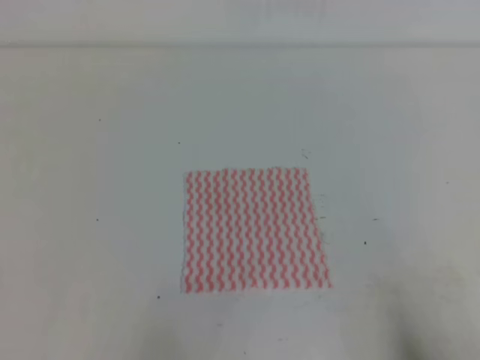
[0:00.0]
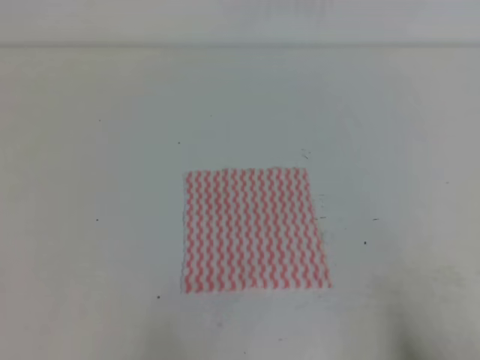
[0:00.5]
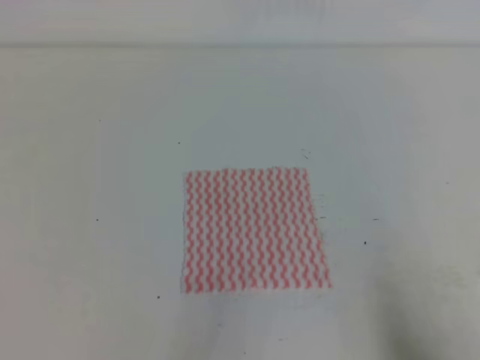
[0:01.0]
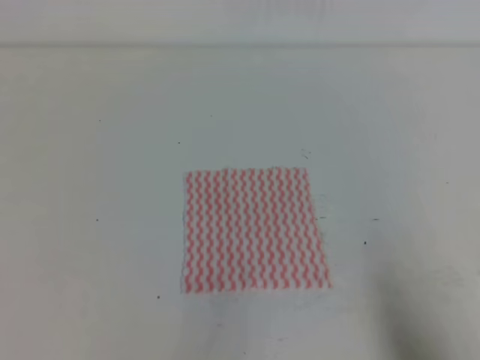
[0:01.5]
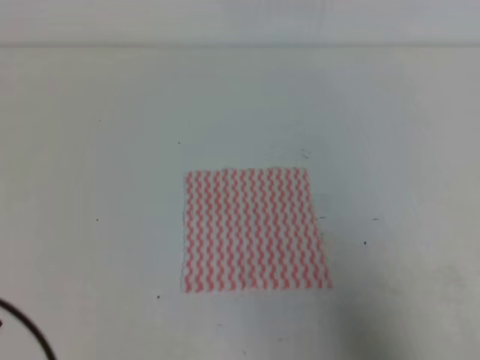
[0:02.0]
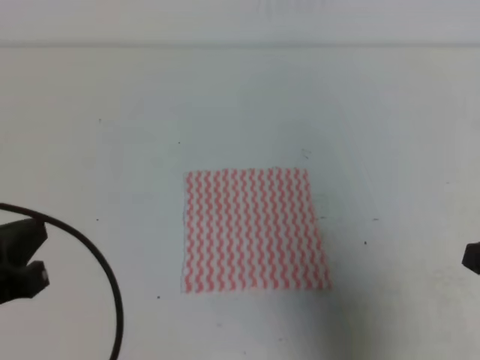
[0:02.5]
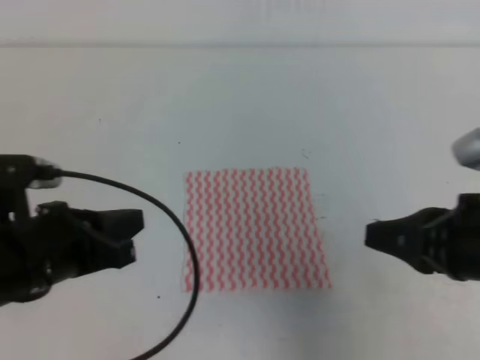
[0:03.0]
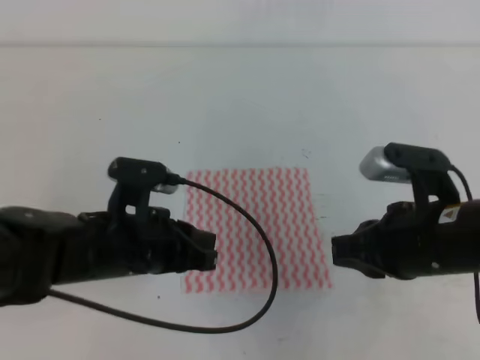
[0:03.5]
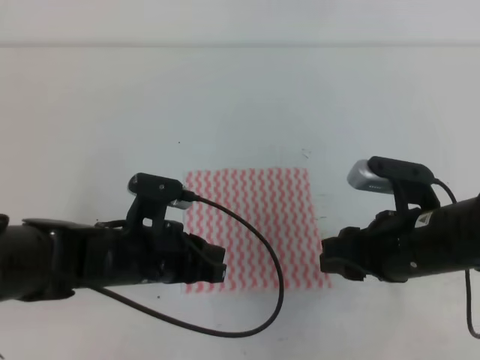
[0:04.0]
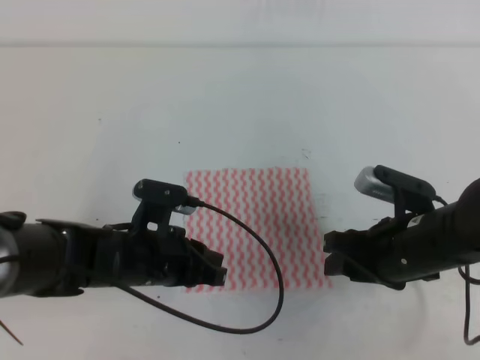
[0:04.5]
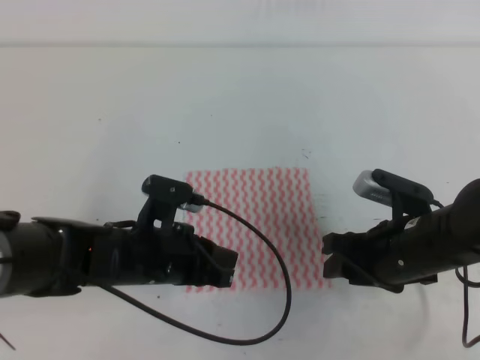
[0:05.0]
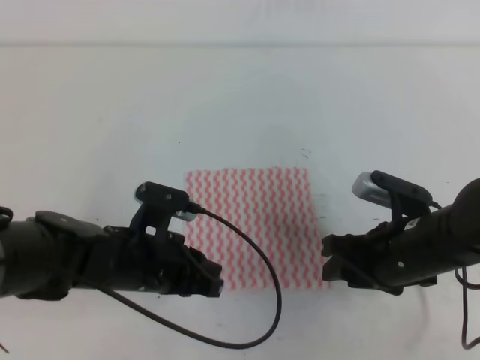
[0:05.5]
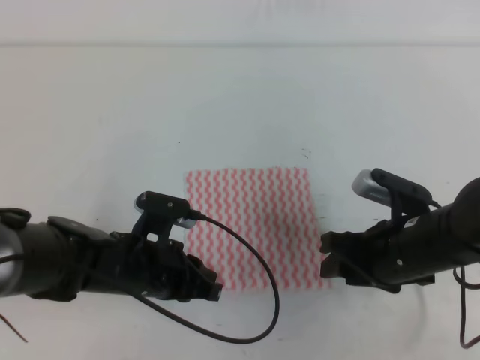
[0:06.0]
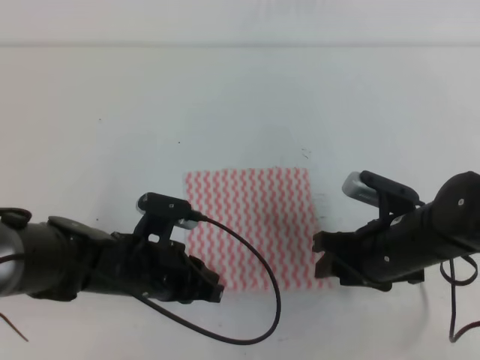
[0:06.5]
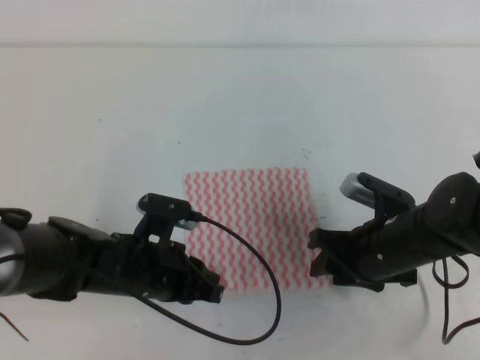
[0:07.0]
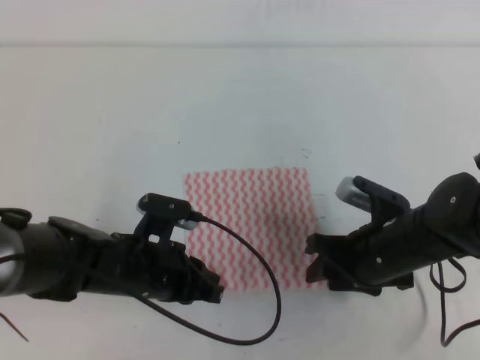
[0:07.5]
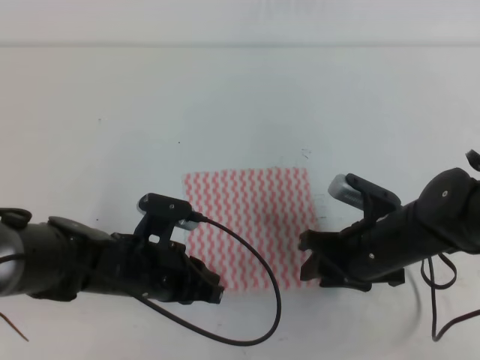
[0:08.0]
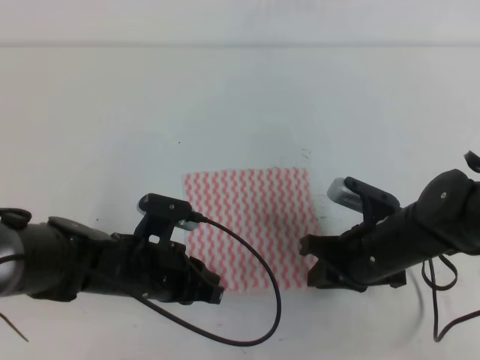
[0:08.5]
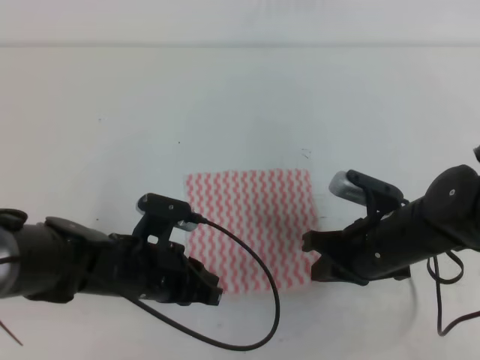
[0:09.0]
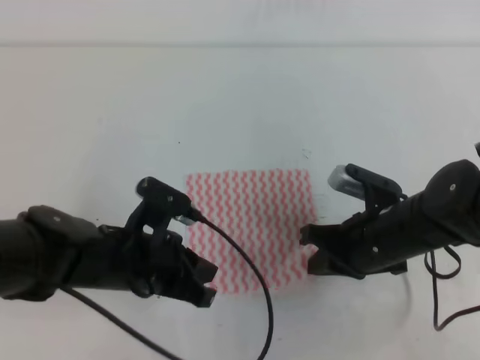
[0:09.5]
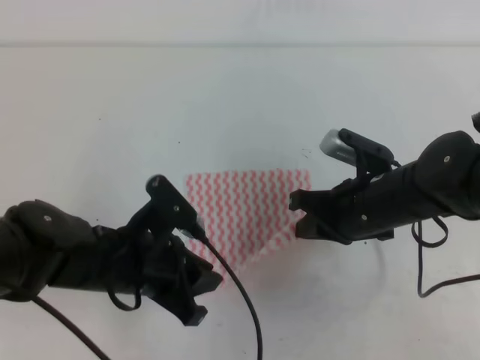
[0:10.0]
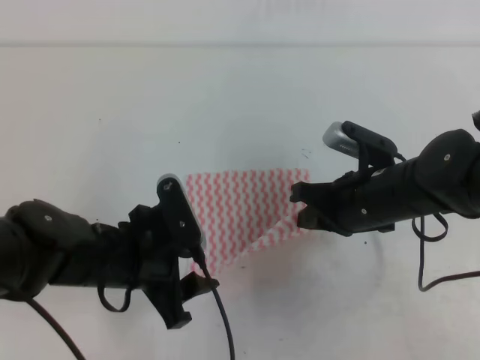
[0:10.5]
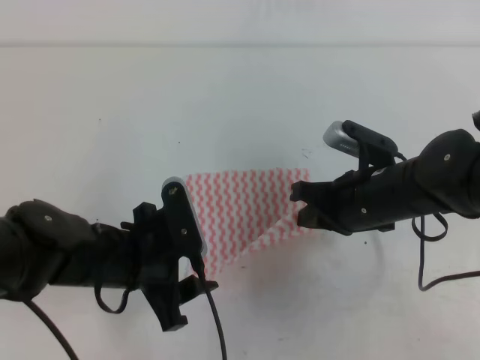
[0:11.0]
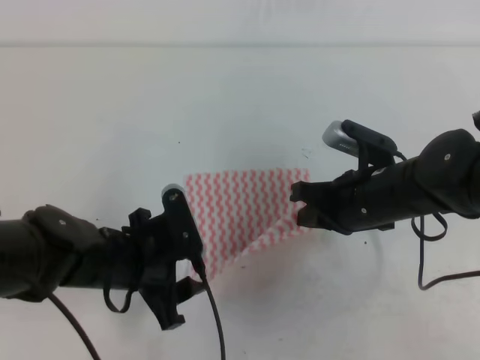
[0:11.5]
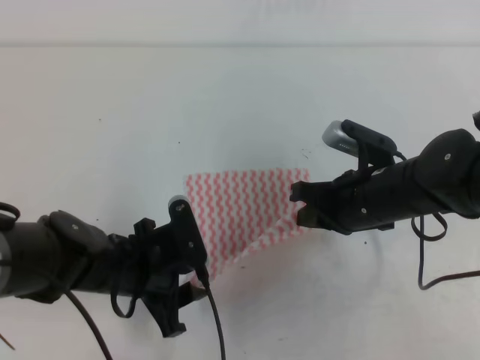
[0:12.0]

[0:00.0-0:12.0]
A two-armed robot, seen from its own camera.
0:00.0 to 0:02.0: Both grippers travel together upward, roughly 5 cm.
0:02.0 to 0:04.0: The right gripper goes roughly 20 cm forward and to the left, and opens. Meanwhile the left gripper shifts approximately 25 cm forward, to the right and downward.
0:04.0 to 0:06.0: There are only small adjustments of the grippers.
0:06.0 to 0:08.0: The grippers move only a little.
0:08.0 to 0:10.0: The left gripper moves roughly 5 cm, and opens its fingers. The right gripper moves some 5 cm, and closes up.

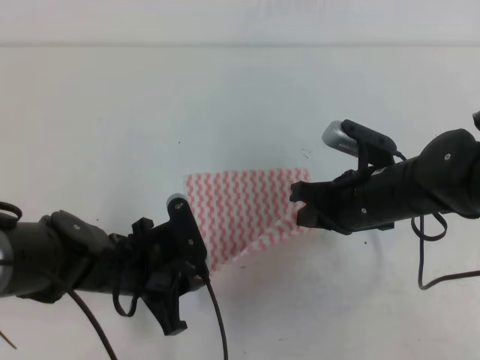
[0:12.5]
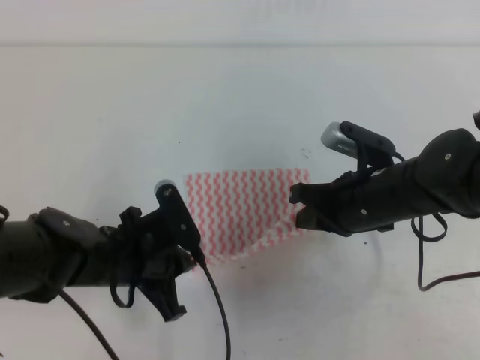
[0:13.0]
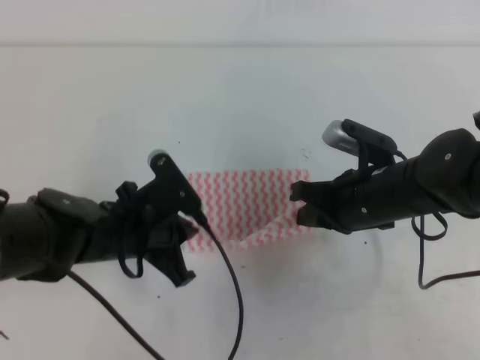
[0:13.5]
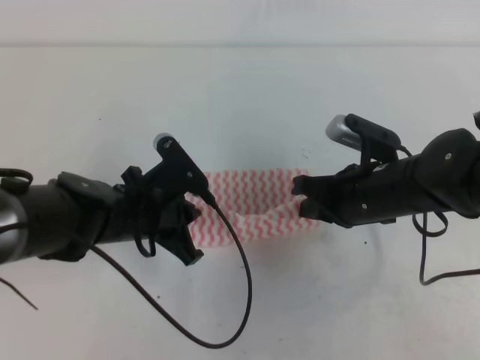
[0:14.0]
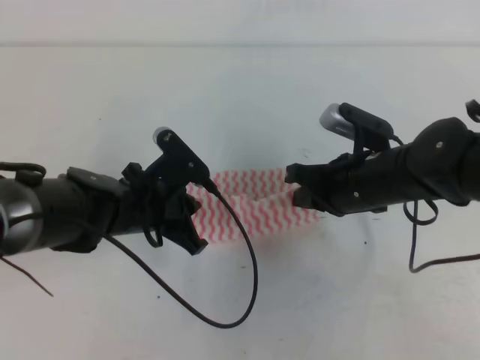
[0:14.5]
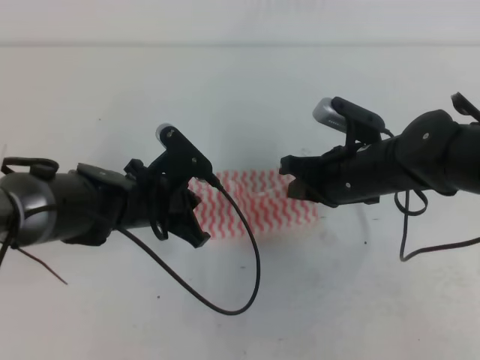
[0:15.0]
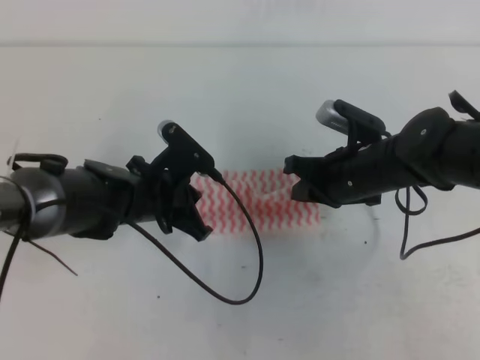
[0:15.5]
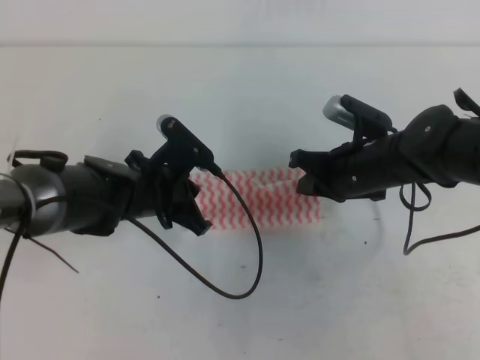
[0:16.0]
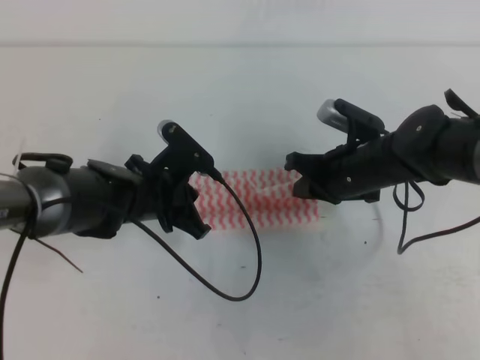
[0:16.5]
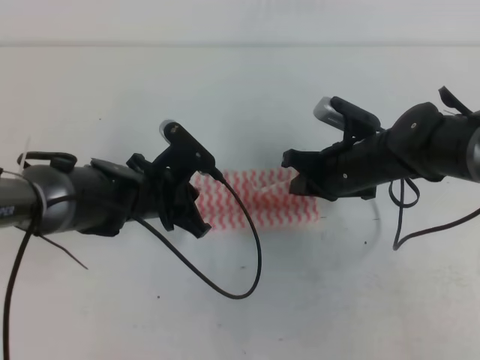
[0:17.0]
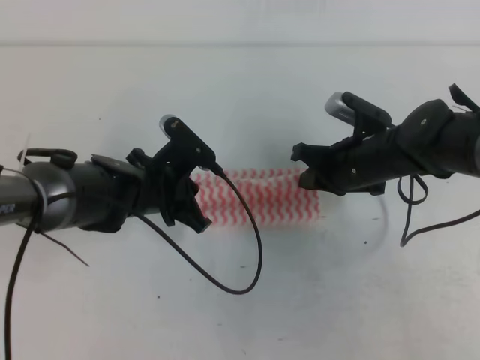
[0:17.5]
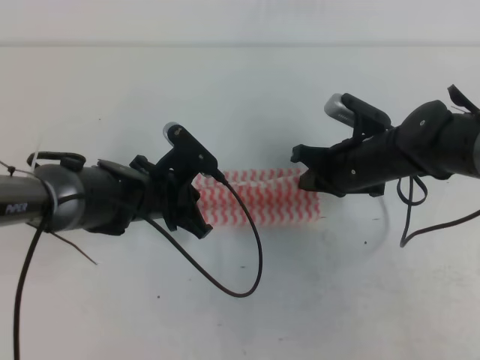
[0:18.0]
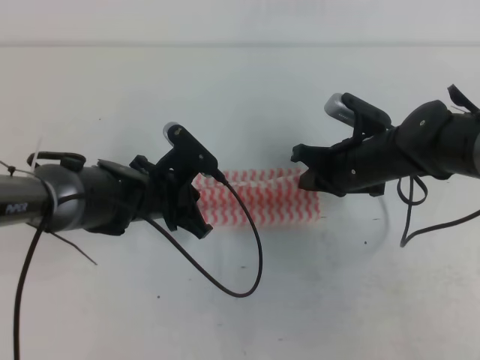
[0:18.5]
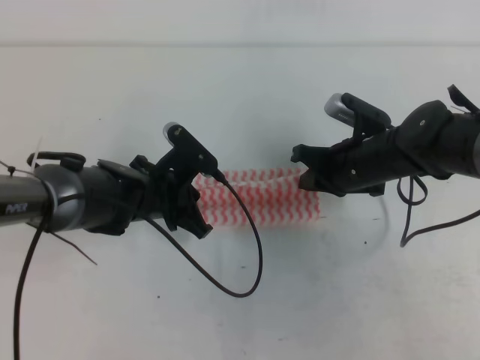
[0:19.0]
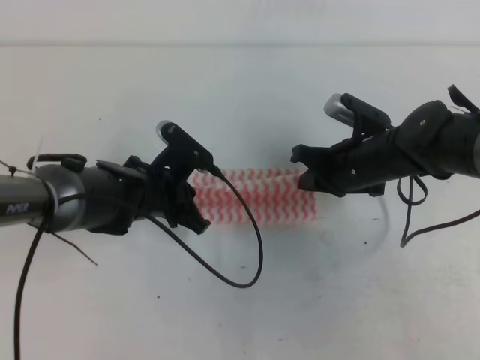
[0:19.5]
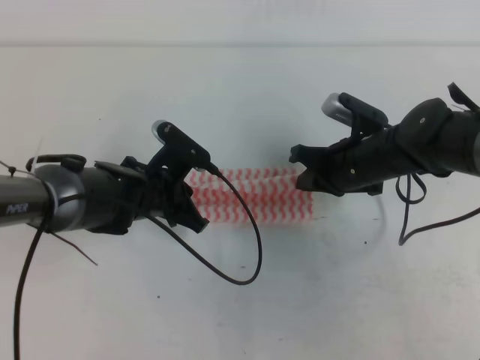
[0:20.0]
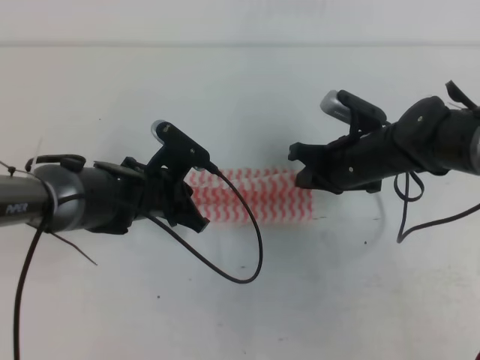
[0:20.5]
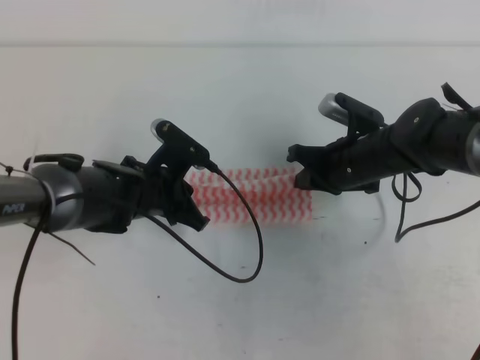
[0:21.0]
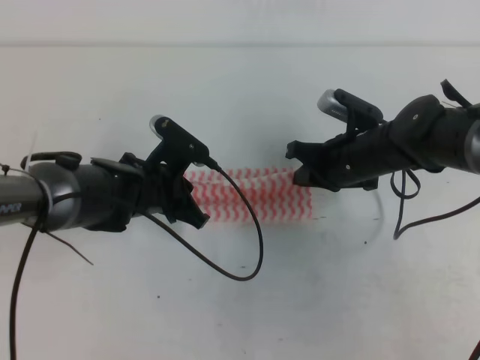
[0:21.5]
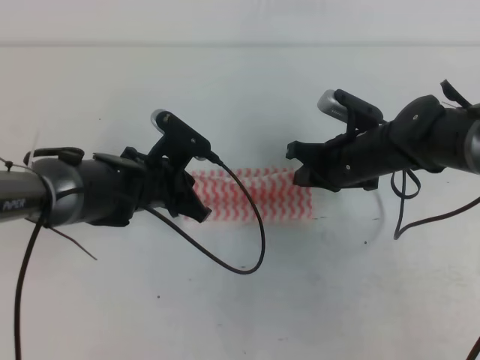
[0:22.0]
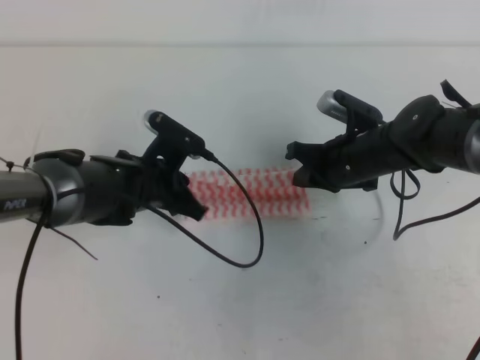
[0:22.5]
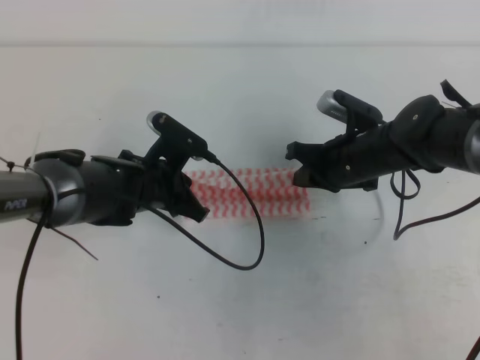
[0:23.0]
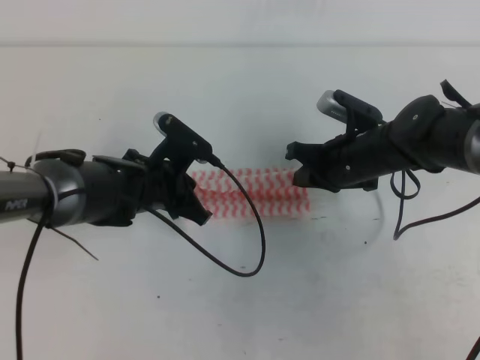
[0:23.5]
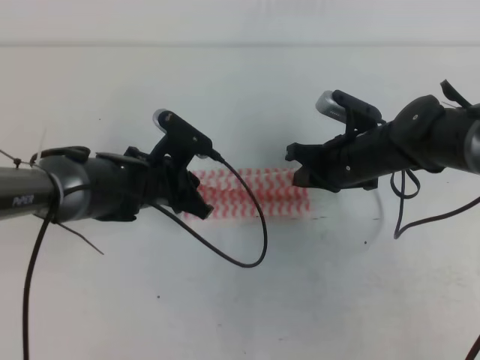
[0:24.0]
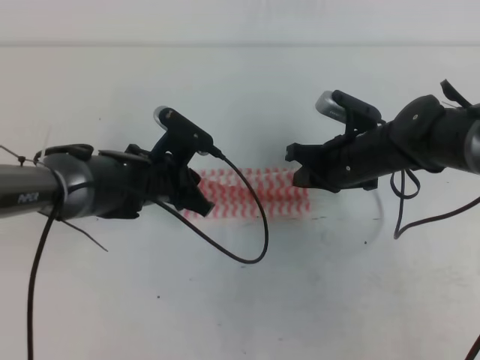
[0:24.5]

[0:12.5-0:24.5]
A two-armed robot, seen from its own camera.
0:12.5 to 0:14.5: The left gripper is displaced forward by about 5 cm.
0:14.5 to 0:16.5: The right gripper ends up roughly 5 cm from where it was.
0:16.5 to 0:22.5: The grippers stay close to where they were, moving slightly.
0:22.5 to 0:24.5: The left gripper opens its fingers.

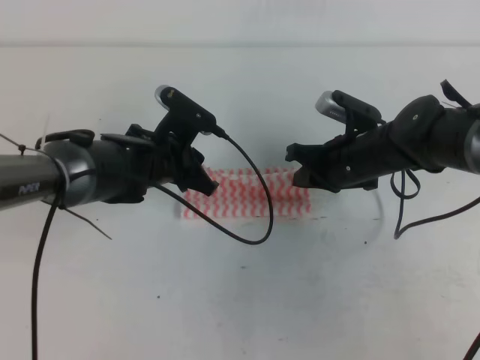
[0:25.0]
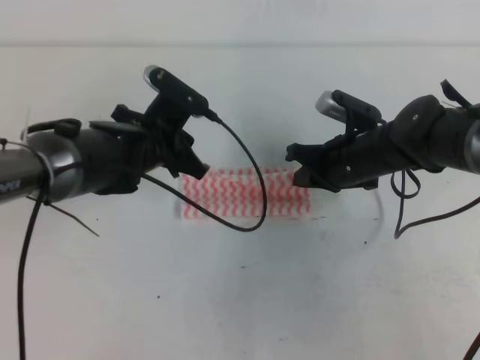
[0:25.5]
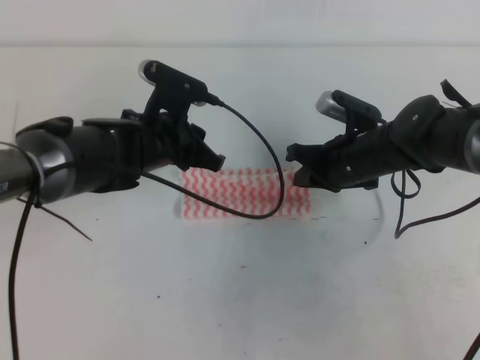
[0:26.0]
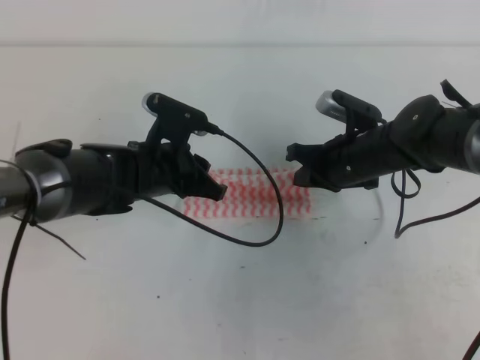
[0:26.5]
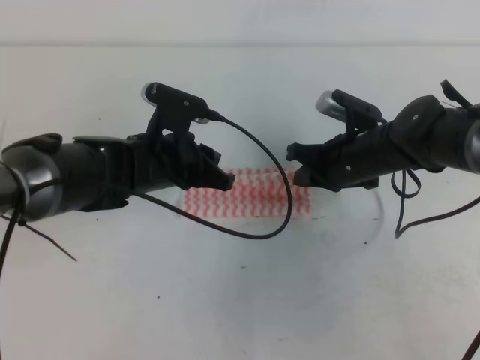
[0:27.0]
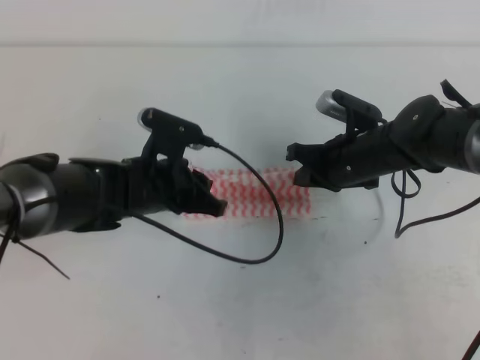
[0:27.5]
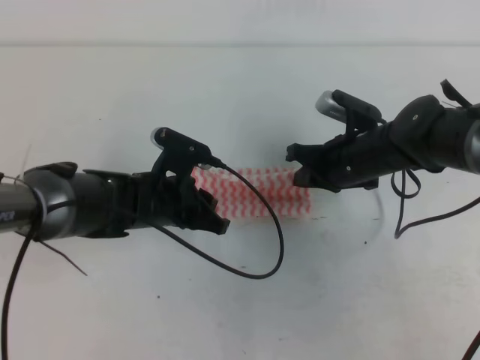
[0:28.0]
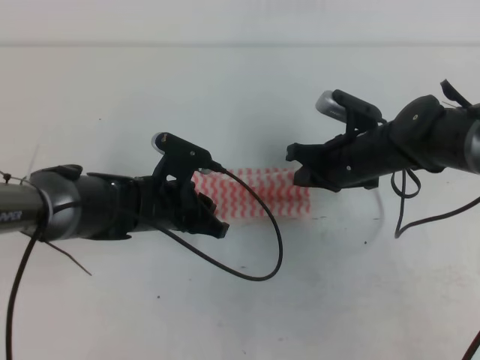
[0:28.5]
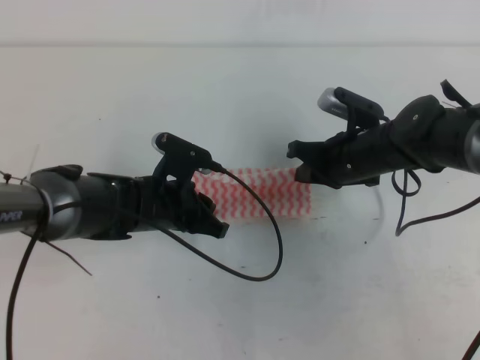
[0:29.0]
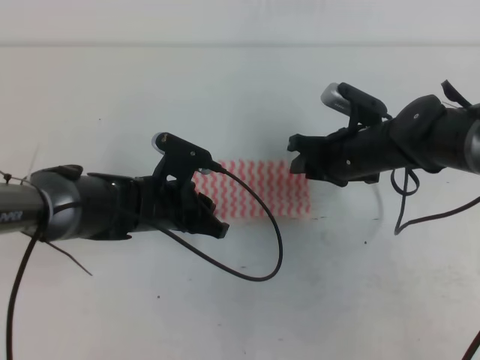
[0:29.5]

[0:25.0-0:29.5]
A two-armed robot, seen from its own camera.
0:25.0 to 0:27.0: The grippers move only a little.
0:27.0 to 0:29.5: The right gripper opens up. The left gripper is displaced downward by roughly 5 cm.
